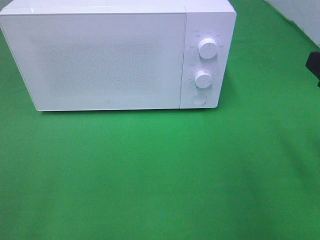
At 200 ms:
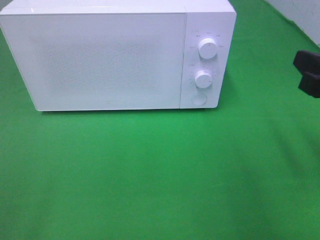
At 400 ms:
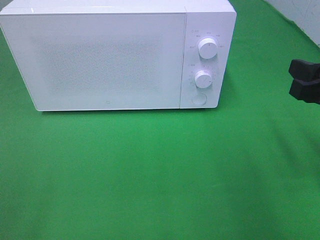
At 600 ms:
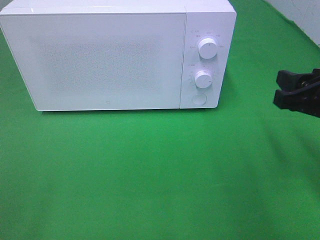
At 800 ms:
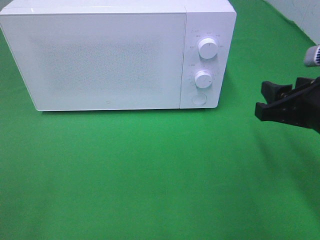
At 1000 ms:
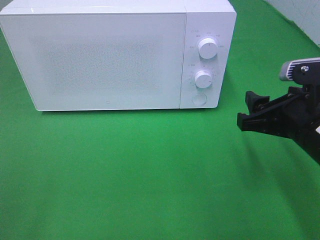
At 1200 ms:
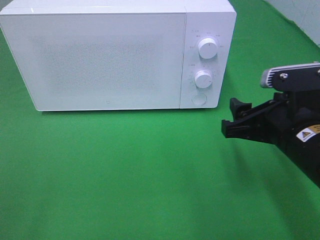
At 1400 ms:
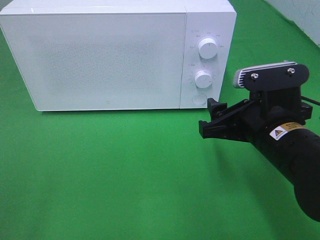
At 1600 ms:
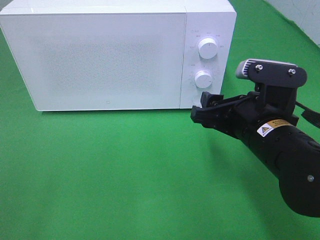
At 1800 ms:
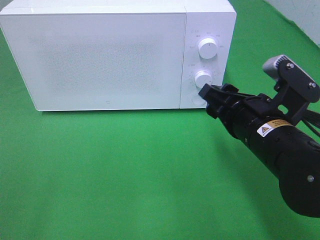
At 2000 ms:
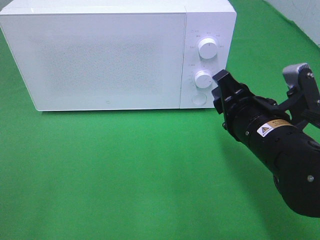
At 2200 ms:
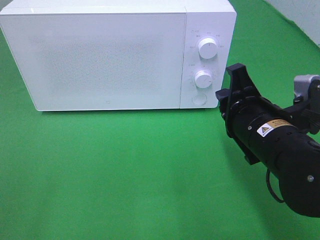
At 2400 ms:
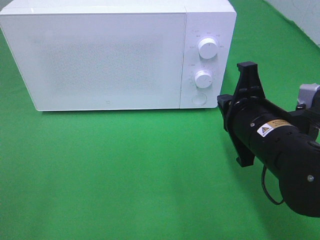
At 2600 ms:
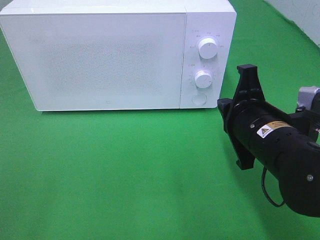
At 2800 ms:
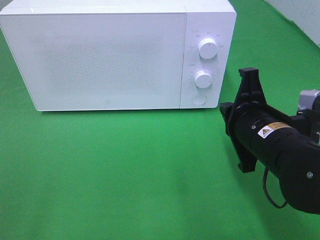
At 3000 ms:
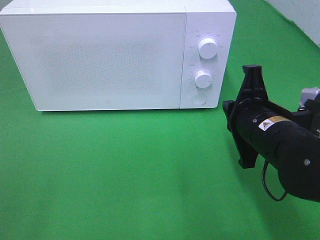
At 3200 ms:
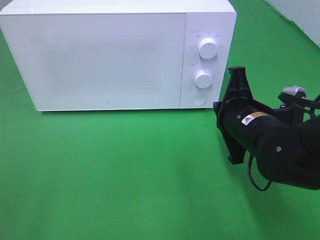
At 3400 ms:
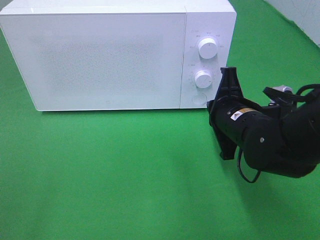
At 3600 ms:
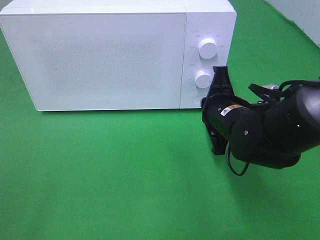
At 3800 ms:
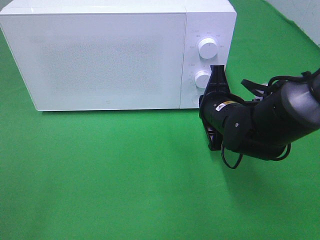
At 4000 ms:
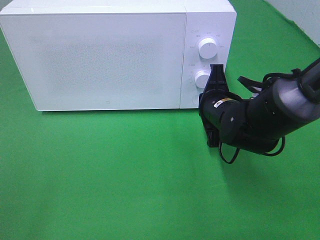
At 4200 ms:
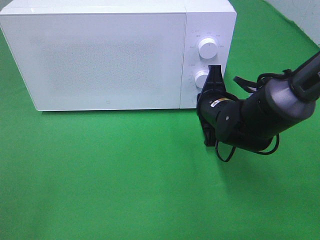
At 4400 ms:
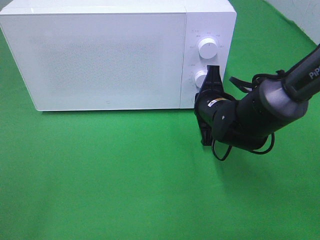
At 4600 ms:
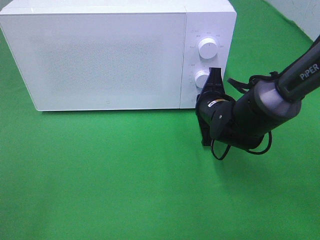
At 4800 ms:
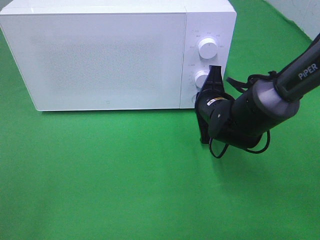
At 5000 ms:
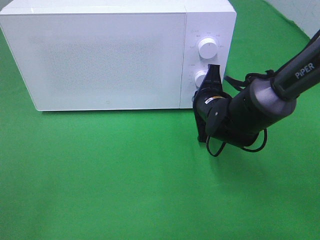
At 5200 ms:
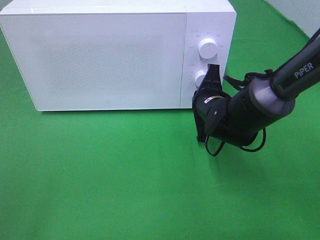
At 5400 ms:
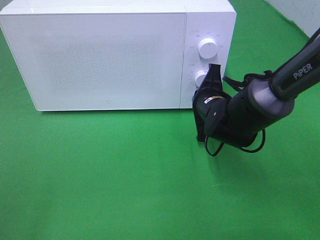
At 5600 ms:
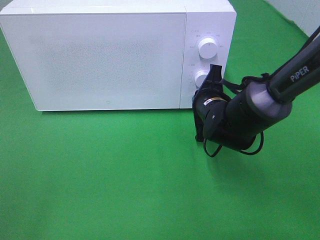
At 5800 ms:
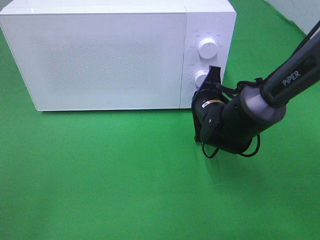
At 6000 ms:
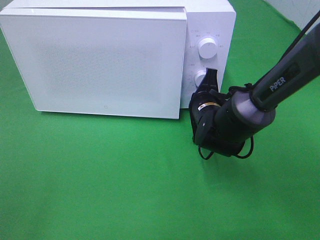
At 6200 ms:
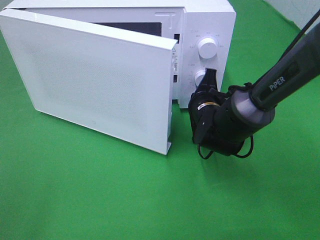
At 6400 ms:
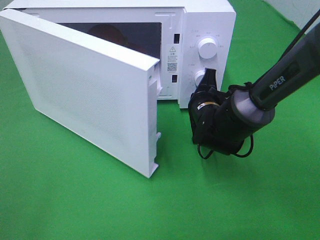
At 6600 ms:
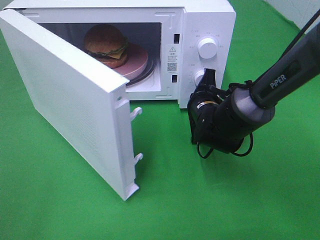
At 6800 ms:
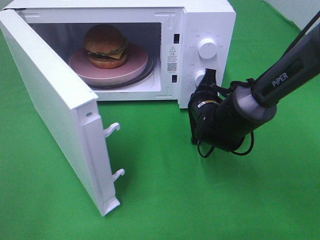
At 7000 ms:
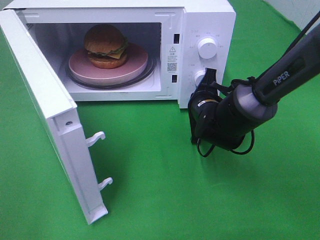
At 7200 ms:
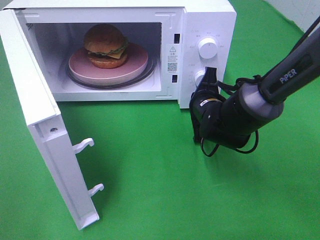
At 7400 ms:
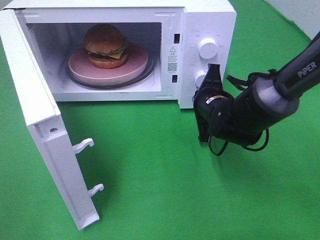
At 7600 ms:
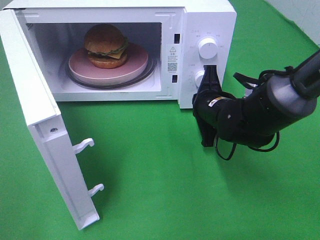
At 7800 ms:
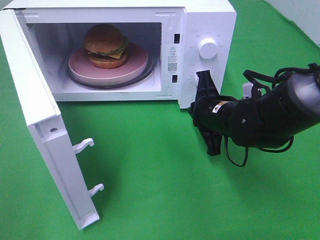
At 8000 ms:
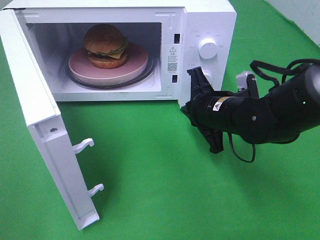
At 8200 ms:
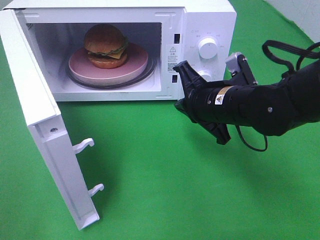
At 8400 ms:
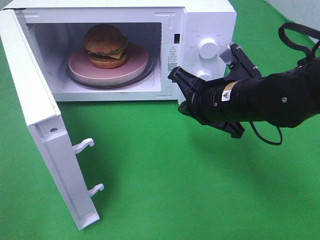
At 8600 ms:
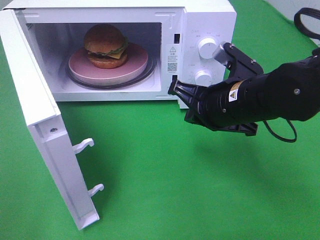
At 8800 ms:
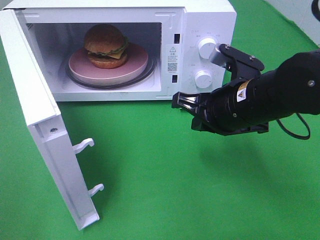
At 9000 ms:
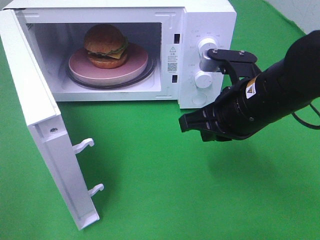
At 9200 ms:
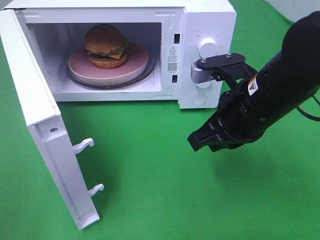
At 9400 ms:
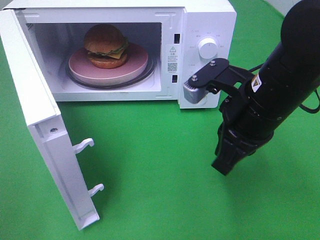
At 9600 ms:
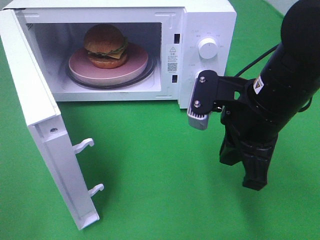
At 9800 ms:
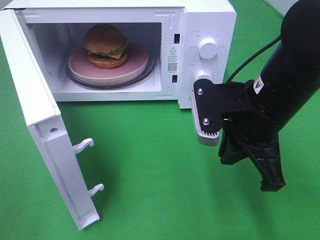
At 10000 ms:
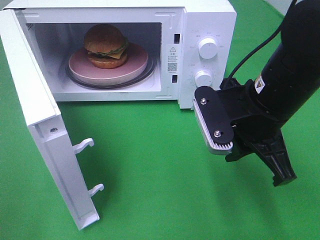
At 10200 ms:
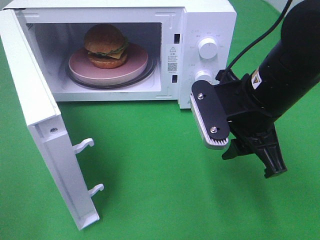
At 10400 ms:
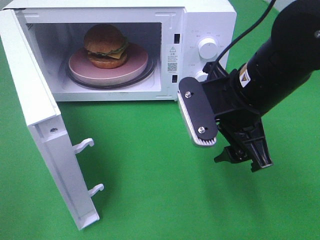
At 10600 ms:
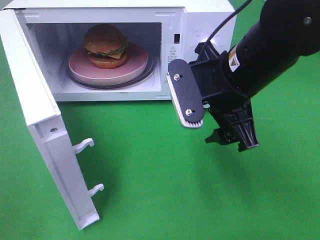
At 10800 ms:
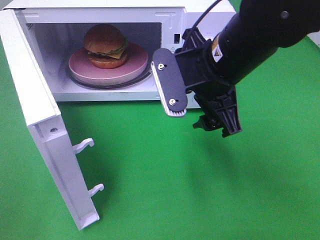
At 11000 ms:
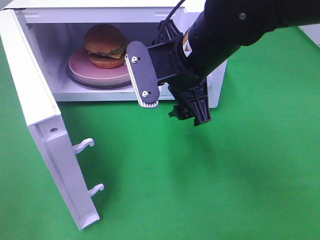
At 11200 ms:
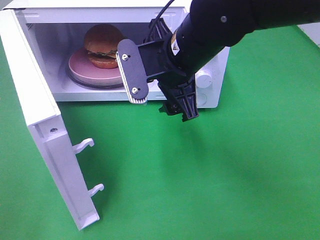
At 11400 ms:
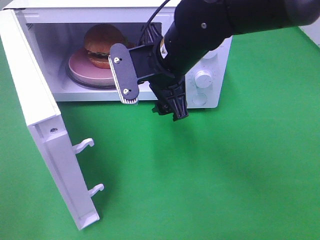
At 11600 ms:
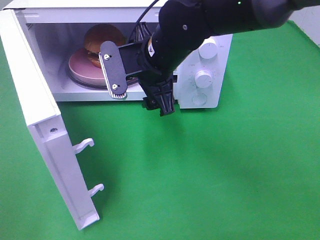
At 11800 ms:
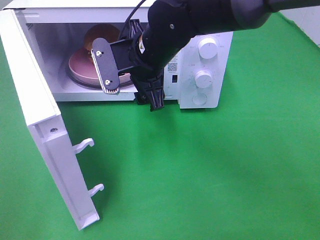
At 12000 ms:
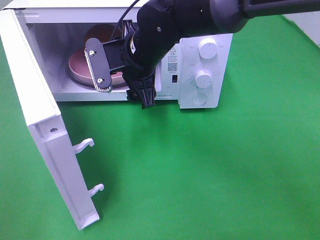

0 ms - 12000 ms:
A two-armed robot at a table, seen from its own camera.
Task of the whole recording: Heat the burger.
Step, 0 ms - 7800 ms: Right hand: press the switch.
0 ms - 1600 ms: The right gripper travels to the left, downward and forward by some 15 cm.
1600 ms - 3000 ms: The right gripper closes its fingers.
3000 ms - 4400 ms: The right gripper goes roughly 10 cm forward and downward.
4400 ms - 6000 ms: The grippers move only a little.
7600 ms - 9000 ms: The right gripper heads upward and backward, covering some 15 cm.
9000 ms - 10400 ms: The right gripper opens.
10400 ms - 12000 ms: The right gripper is displaced to the left and forward by approximately 20 cm.

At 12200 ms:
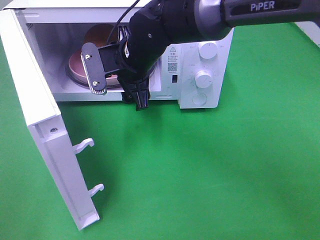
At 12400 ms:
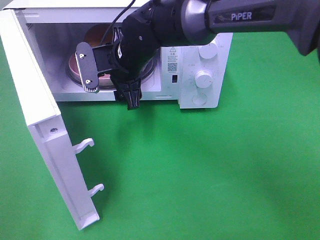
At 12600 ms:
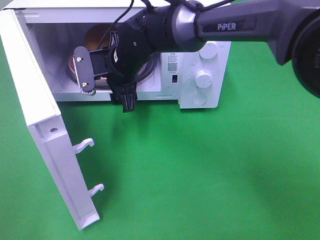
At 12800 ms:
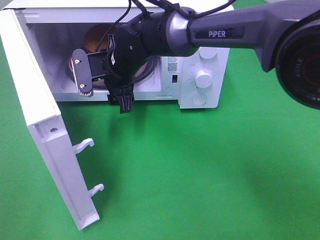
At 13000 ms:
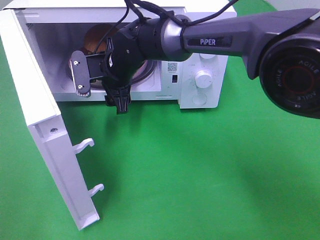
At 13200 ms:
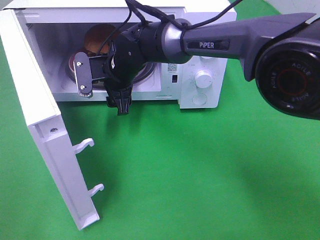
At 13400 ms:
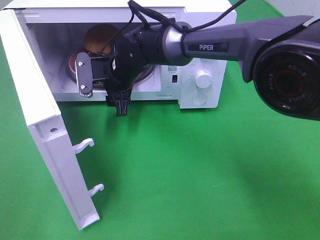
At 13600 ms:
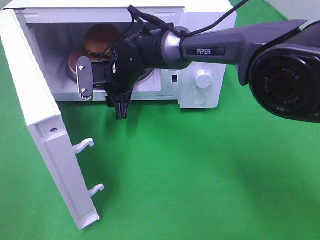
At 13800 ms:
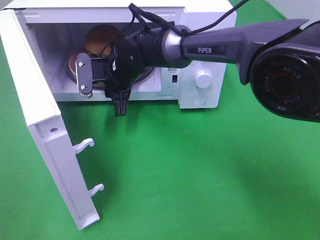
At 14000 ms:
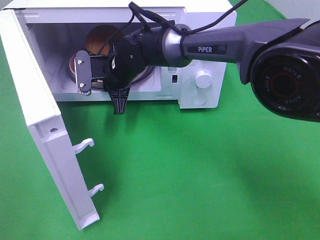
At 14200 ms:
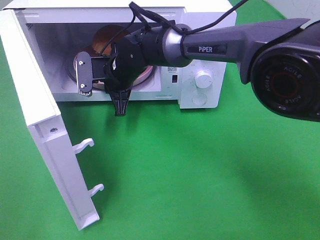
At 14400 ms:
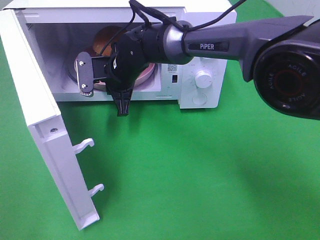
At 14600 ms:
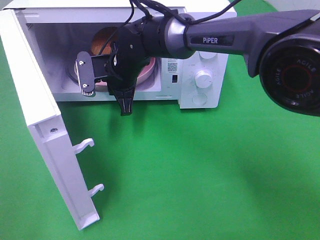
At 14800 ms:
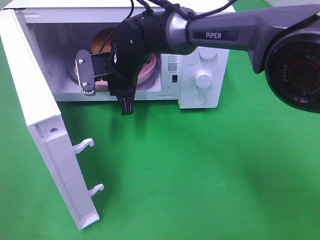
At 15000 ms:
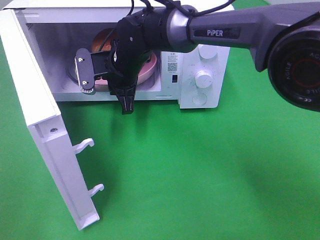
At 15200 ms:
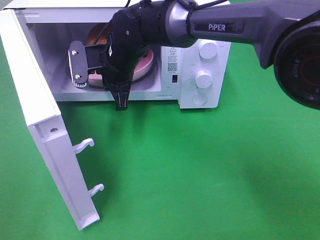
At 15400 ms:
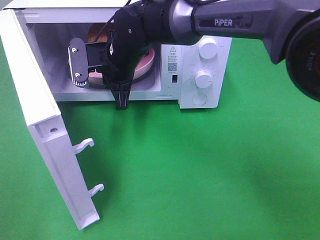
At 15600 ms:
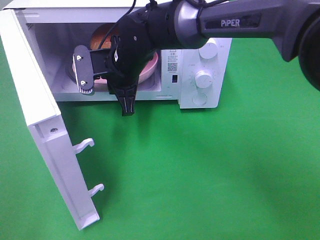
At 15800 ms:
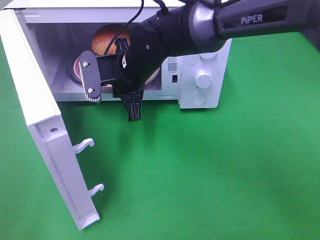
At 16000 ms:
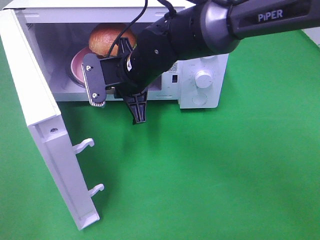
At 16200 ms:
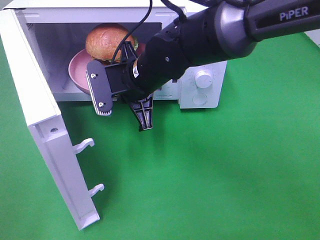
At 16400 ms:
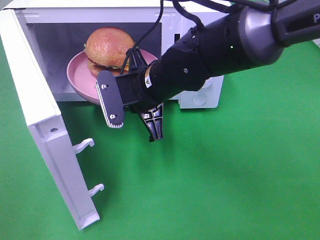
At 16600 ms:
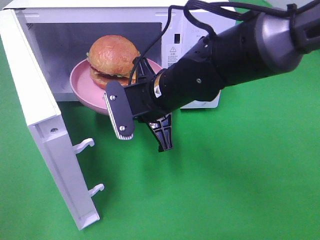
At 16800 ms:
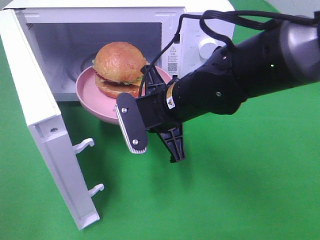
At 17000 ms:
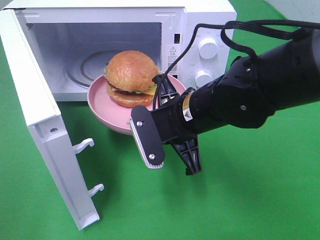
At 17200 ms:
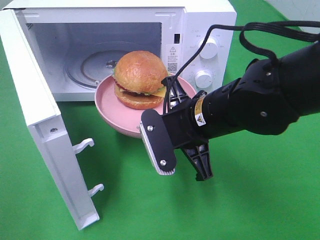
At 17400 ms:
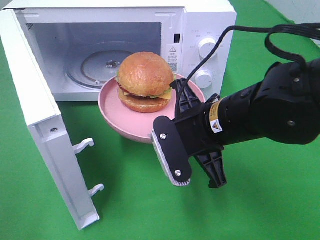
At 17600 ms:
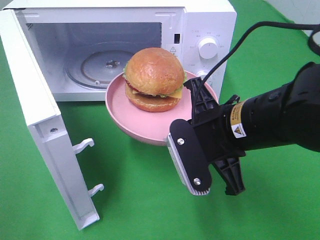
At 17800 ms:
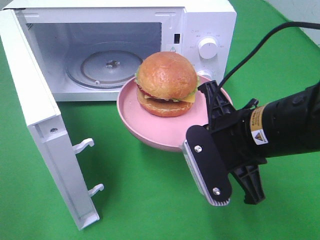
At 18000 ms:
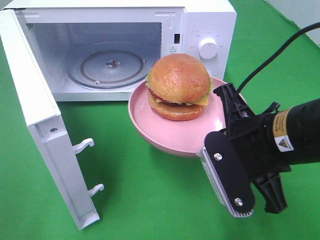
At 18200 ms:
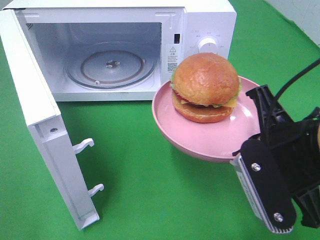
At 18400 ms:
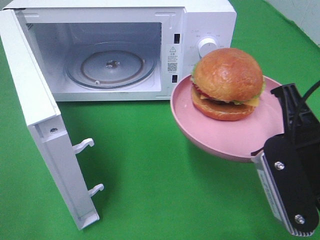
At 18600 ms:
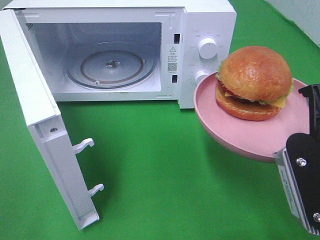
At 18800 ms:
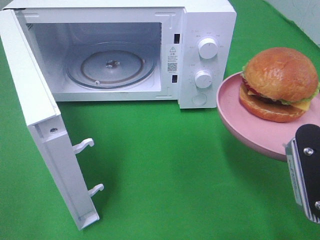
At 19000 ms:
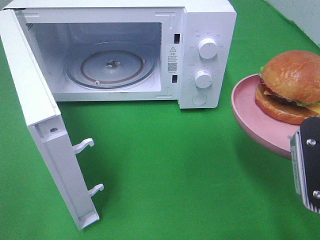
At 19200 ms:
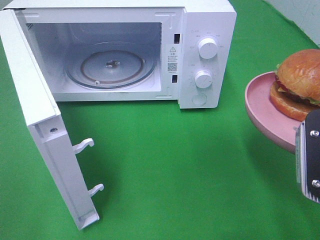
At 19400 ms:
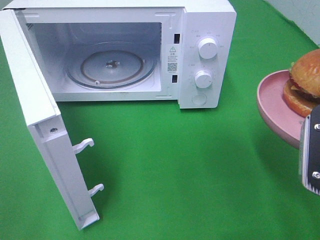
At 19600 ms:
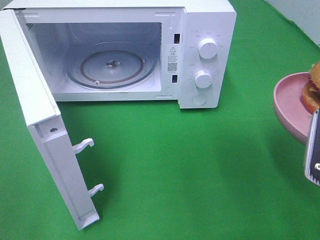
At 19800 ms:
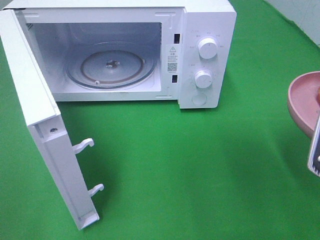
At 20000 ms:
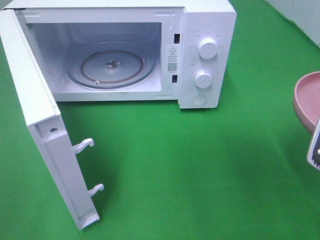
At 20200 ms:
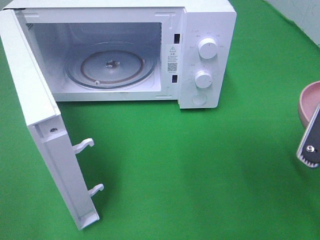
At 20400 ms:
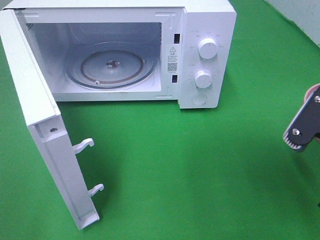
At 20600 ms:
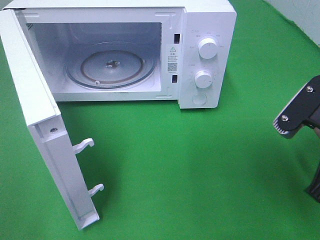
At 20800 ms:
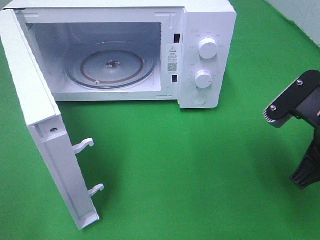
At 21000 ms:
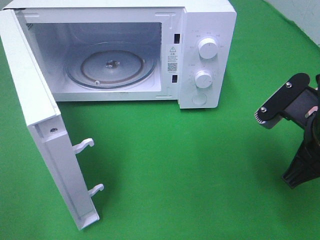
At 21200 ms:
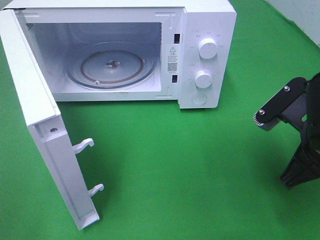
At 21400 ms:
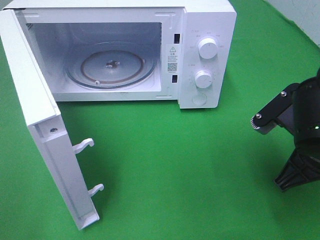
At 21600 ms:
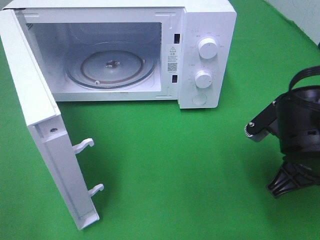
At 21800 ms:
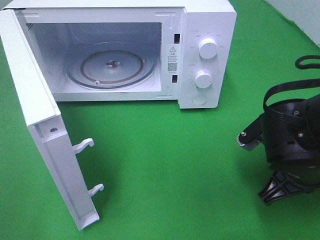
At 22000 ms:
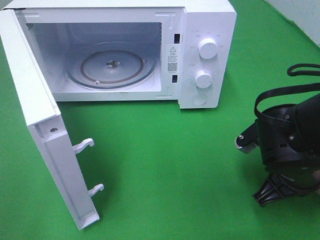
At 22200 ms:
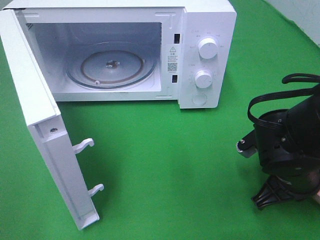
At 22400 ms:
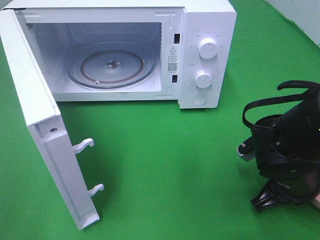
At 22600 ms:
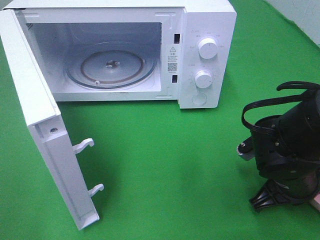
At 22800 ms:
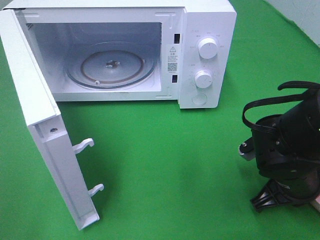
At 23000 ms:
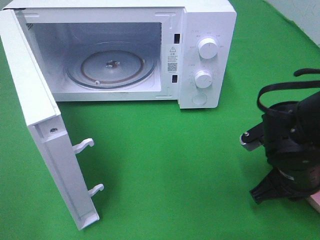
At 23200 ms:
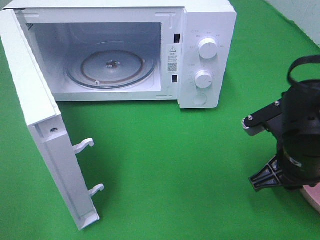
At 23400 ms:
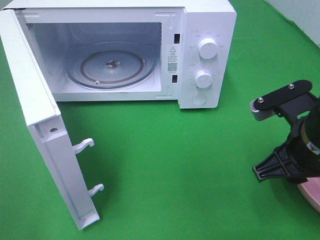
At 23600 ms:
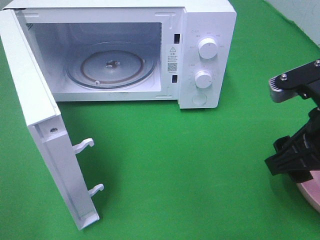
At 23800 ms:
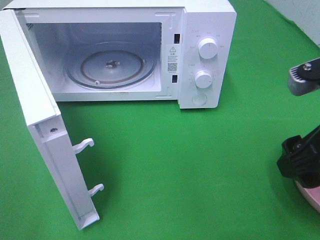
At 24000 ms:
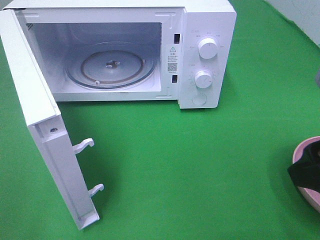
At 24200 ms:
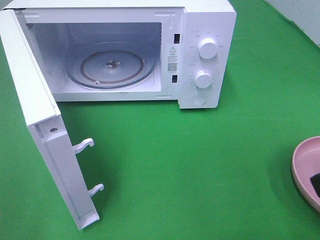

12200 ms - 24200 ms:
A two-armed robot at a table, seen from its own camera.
Task of the whole recording: Heat the burger.
Step, 12200 ms - 15000 ms: Right hand: grab the plate with the hamburger.
Step, 15200 ms - 23200 ms: Right hand: place the plate on the table.
12200 ms - 13800 ms: The right gripper shifts roughly 5 cm downward, and closes.
13800 ms - 15200 ms: The right gripper ends up some 5 cm from where it was.
15200 ms - 16600 ms: The right gripper is displaced backward and to the right by some 15 cm.
16600 ms - 18200 ms: The right gripper is displaced to the right and backward by roughly 20 cm.
18200 ms - 19800 ms: The right gripper heads to the right, covering some 5 cm.
19800 ms - 21200 ms: The right gripper heads forward, covering approximately 5 cm.
21200 ms - 22600 ms: The right gripper travels downward by some 10 cm.
22600 ms - 24200 ms: The right gripper moves upward and backward, roughly 25 cm, and opens its fingers.
